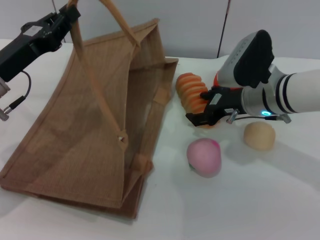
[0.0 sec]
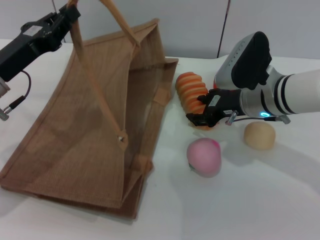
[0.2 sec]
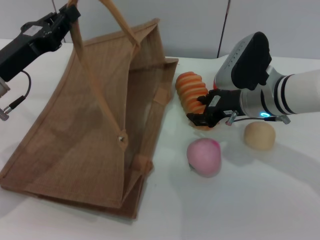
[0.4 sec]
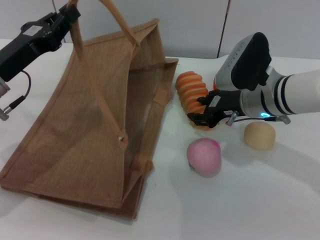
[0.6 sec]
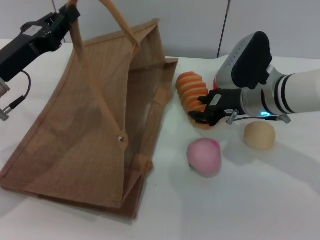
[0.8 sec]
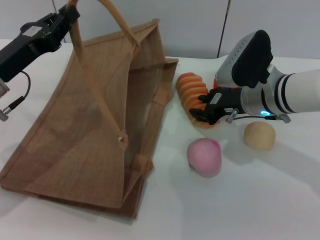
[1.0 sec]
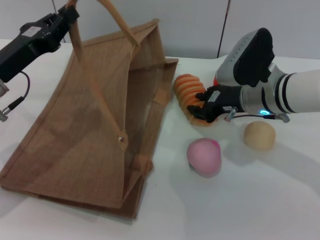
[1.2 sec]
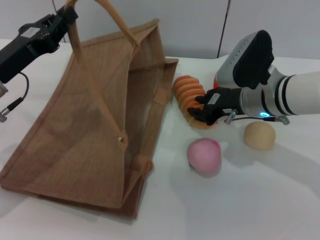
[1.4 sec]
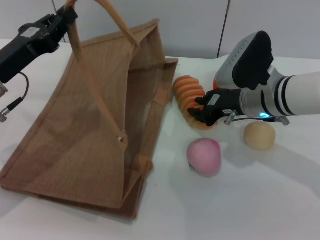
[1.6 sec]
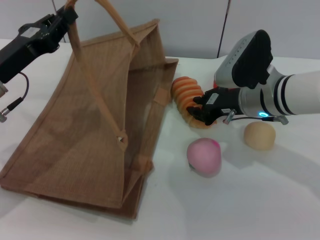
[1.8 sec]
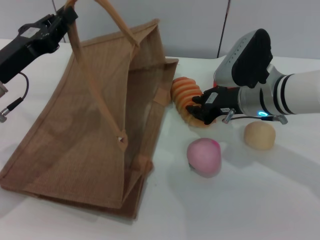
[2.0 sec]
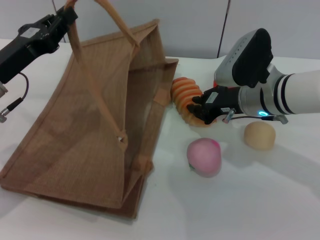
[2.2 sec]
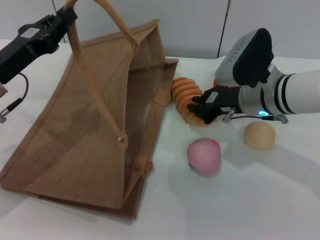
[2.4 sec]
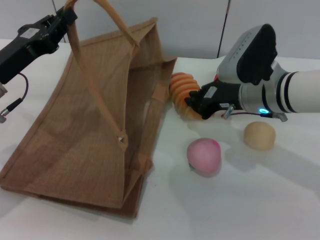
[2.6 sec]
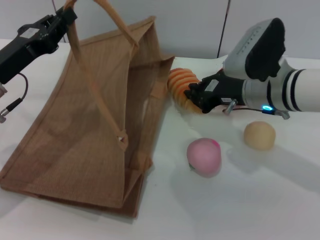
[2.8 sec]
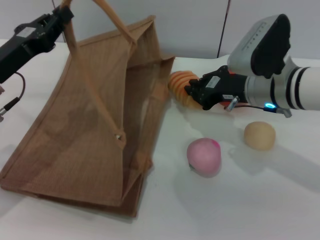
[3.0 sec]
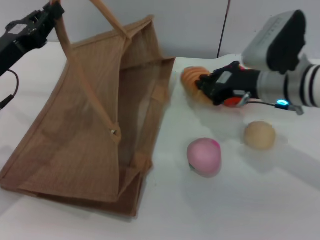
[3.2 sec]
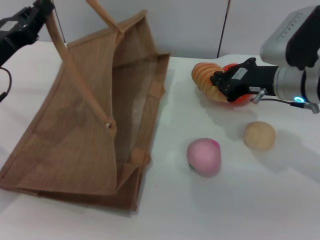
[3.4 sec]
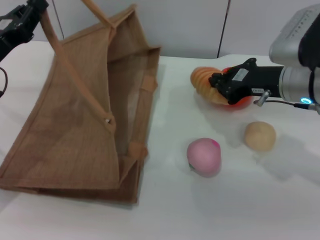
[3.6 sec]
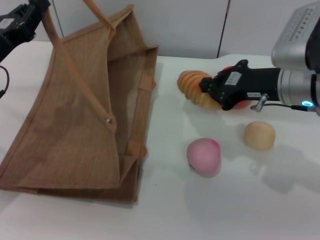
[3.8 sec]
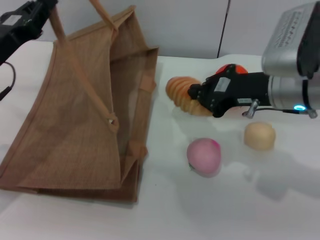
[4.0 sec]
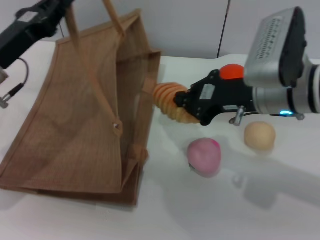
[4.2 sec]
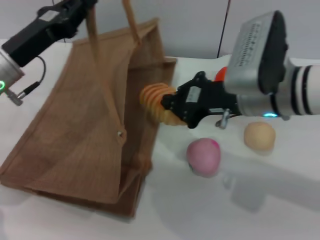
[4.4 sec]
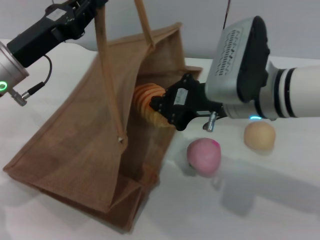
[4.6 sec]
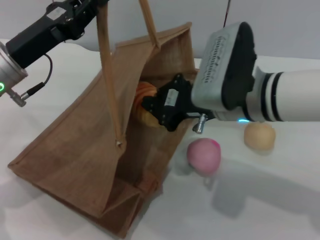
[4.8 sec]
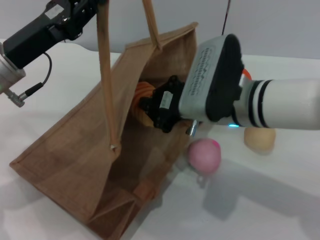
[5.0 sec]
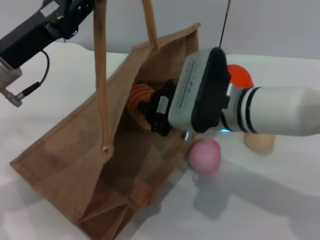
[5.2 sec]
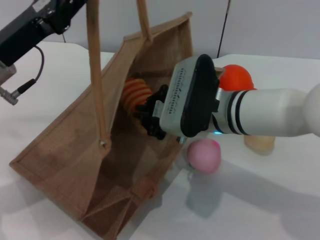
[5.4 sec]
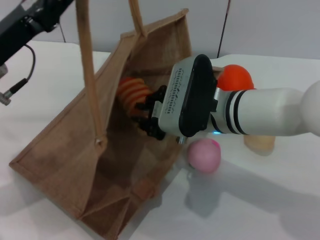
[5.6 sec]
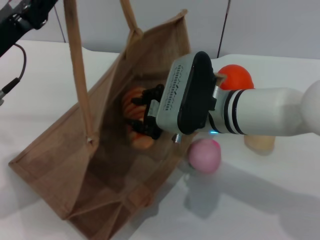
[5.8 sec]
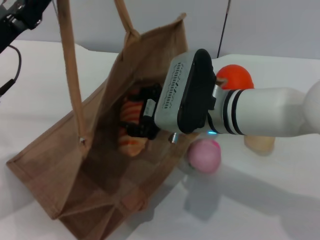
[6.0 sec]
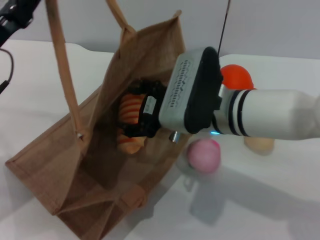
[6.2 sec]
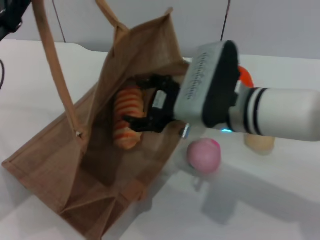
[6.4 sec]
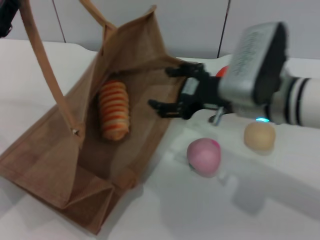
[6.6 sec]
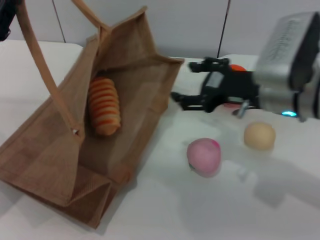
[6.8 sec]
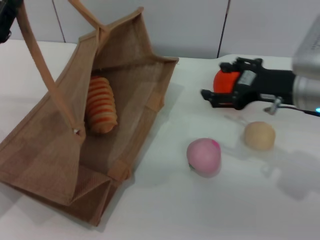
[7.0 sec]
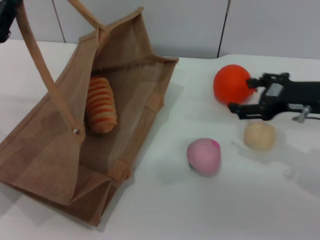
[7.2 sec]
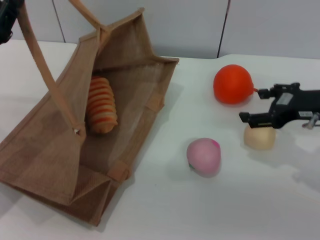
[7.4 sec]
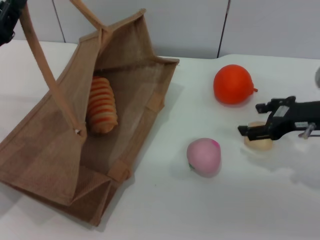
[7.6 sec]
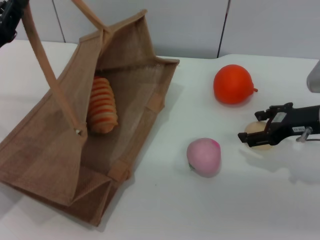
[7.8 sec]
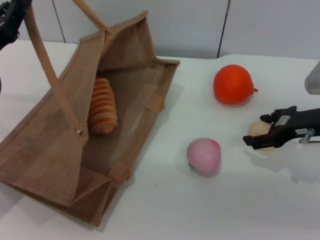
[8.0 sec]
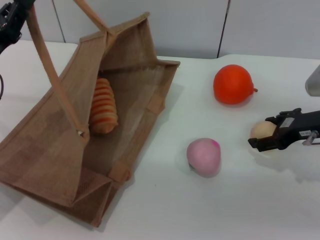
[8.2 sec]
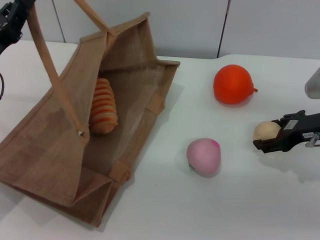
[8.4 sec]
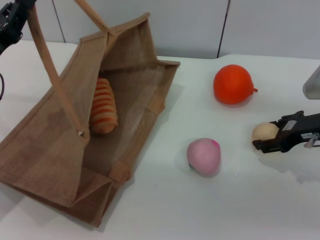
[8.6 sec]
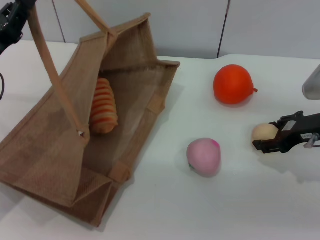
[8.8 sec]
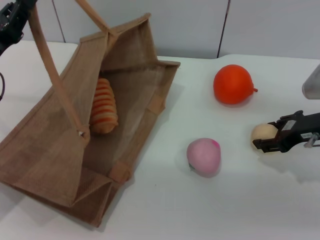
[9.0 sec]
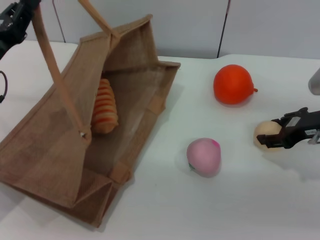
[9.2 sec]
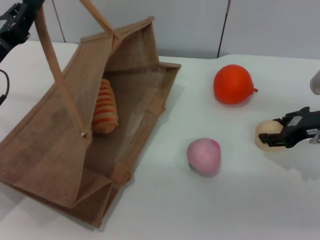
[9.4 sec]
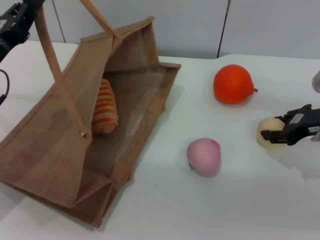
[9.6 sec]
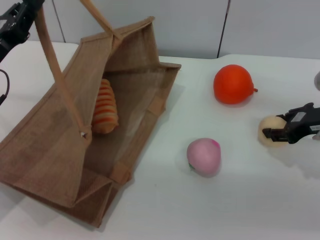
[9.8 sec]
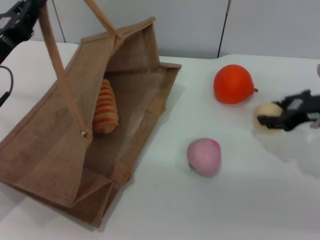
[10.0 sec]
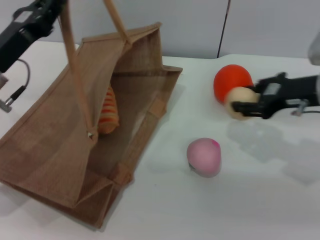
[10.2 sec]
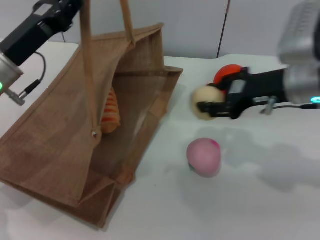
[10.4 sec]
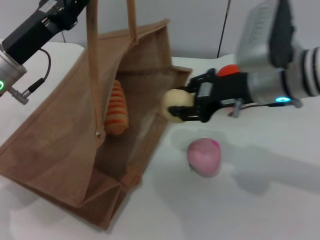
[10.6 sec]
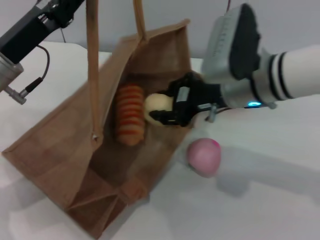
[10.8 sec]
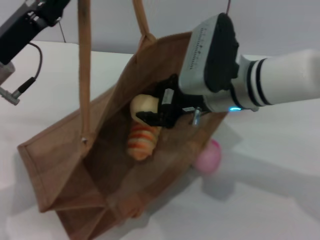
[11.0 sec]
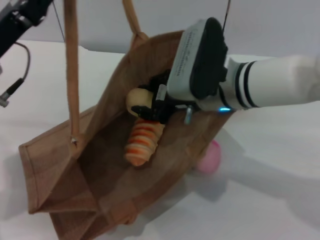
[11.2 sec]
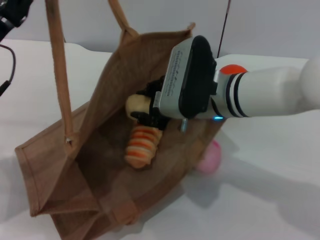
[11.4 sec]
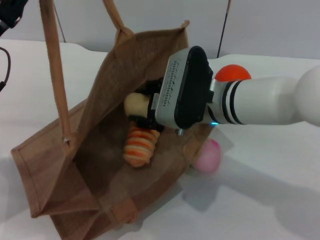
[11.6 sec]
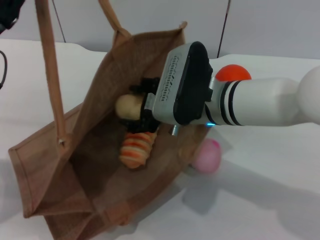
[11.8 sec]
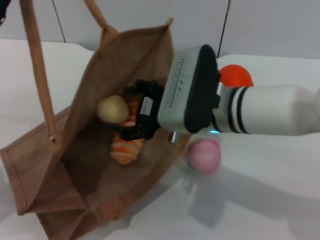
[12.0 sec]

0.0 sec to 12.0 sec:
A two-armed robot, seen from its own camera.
Task of the whole recording: pick up the bread and egg yolk pastry from the table and place it in the brown handbag.
Step, 0.0 sec to 3.8 sec: Pick up the bread with the right gripper.
Step, 4.0 sec to 6.4 sec: Place the bread into the woven bag with the right gripper.
Step, 6.8 sec to 10.0 sec: Pick up the egg yolk pastry with the right gripper.
0.0 sec to 1.6 sec: The right gripper closes.
1.6 sec to 3.0 sec: There are only small adjustments of the grippers.
3.0 sec to 4.4 sec: The right gripper changes place by some 5 cm.
4.4 sec to 6.0 sec: The right gripper travels to the left by approximately 5 cm, and opens.
6.0 sec to 7.6 sec: The left gripper moves approximately 5 cm. The right gripper goes approximately 20 cm to the right, and opens its fingers.
7.6 sec to 9.0 sec: There are only small adjustments of the grippers.
9.0 sec to 10.4 sec: The right gripper is displaced to the left and upward by roughly 10 cm. The left gripper changes place by about 5 cm.
10.4 sec to 12.0 sec: The right gripper is displaced to the left by about 10 cm, and opens. The left gripper moves some 5 cm.

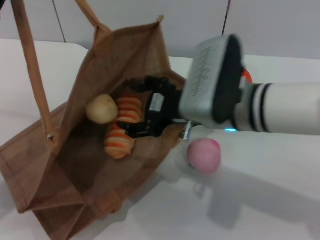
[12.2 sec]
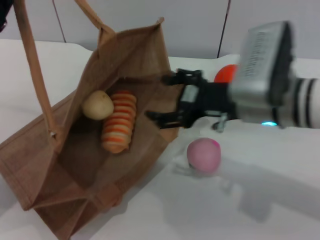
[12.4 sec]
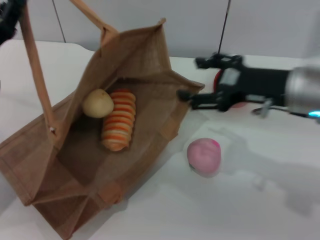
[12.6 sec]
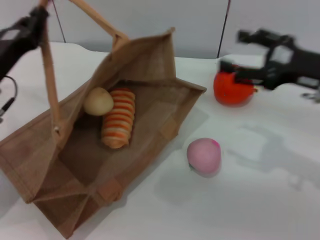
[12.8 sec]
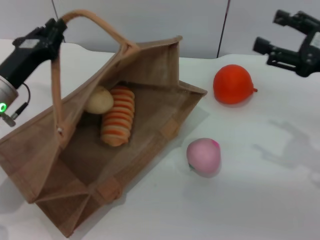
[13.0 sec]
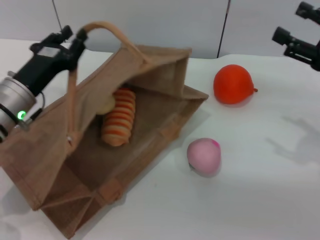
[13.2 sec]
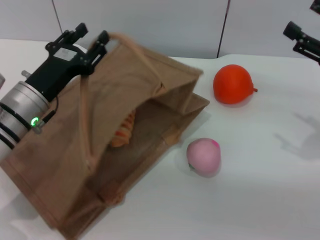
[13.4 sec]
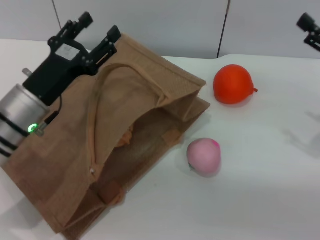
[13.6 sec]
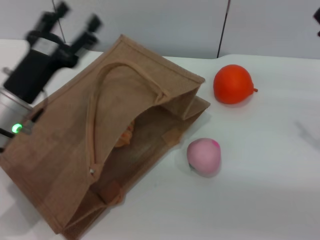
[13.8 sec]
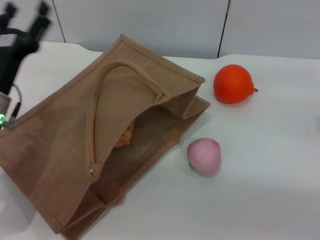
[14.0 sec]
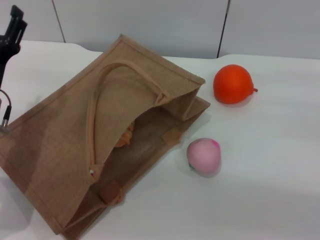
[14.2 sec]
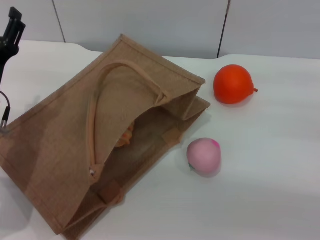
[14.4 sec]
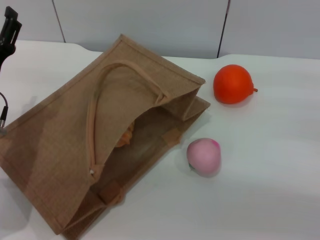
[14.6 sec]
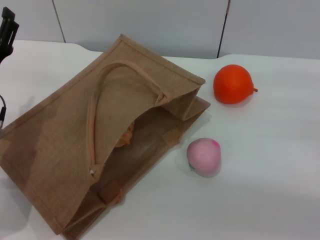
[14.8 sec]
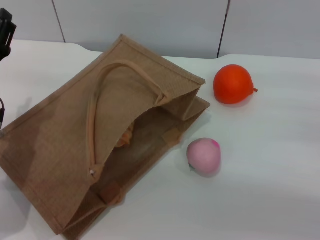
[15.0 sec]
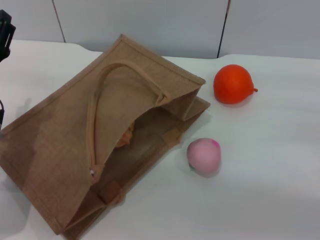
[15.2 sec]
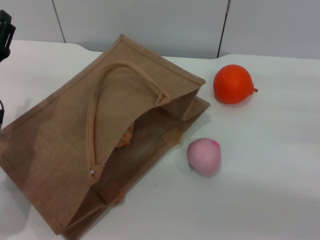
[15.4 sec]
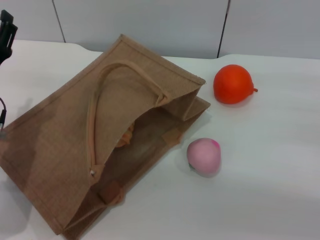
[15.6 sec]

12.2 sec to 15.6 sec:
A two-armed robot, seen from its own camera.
Task of the whole recording: pick up the bread and egg yolk pastry from the table and place it in the brown handbag.
Step, 12.6 sec to 14.2 sec: Lower the woven bag with the left gripper to close it.
12.2 sec to 13.8 sec: The left gripper is displaced to the right by about 5 cm, and opens up. The right gripper heads to the right, covering some 25 cm.
